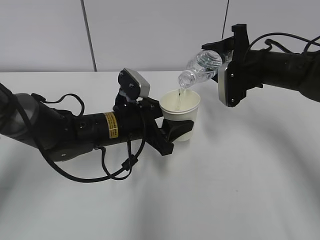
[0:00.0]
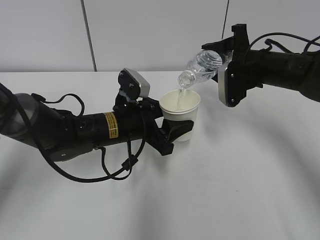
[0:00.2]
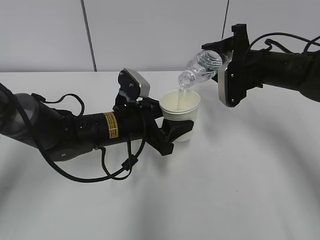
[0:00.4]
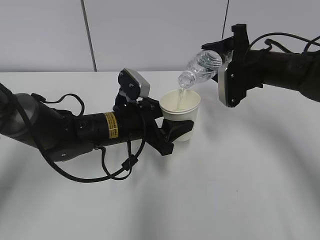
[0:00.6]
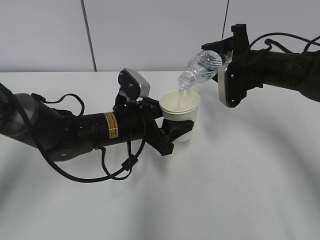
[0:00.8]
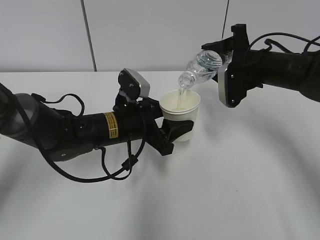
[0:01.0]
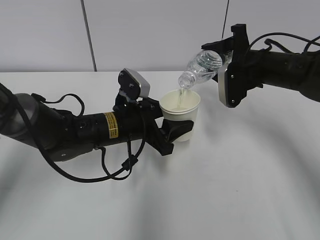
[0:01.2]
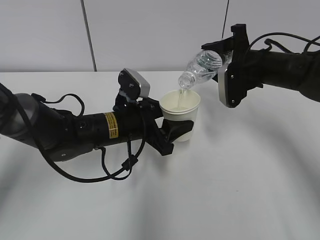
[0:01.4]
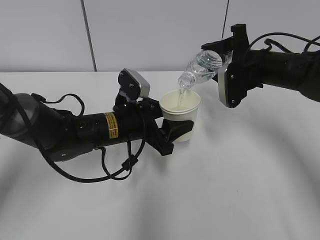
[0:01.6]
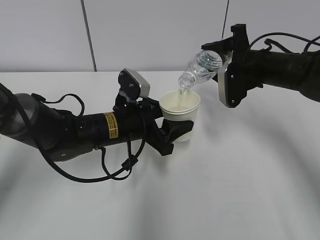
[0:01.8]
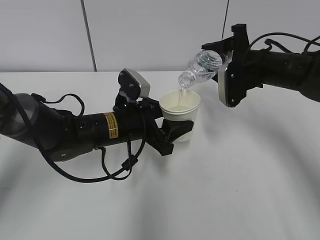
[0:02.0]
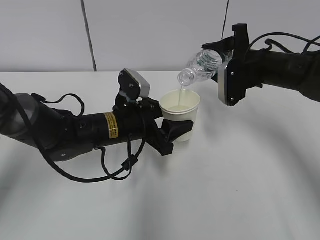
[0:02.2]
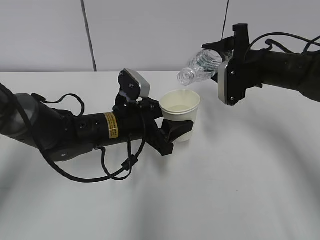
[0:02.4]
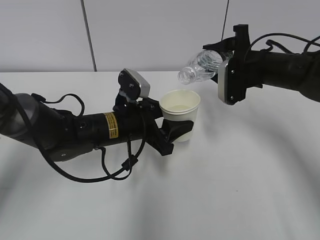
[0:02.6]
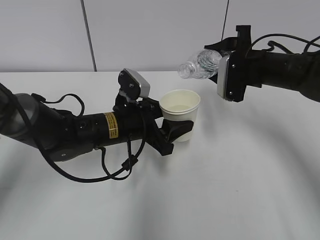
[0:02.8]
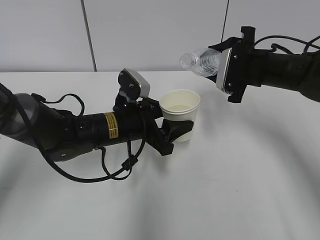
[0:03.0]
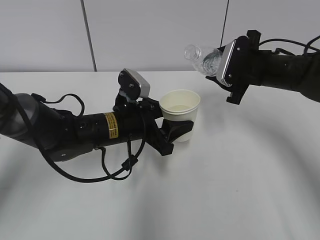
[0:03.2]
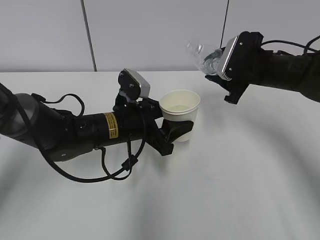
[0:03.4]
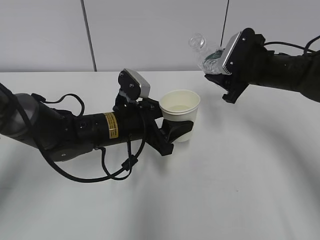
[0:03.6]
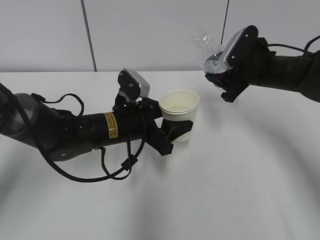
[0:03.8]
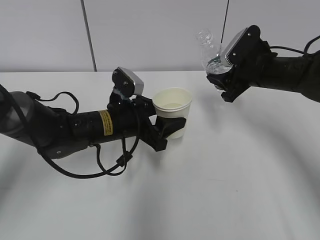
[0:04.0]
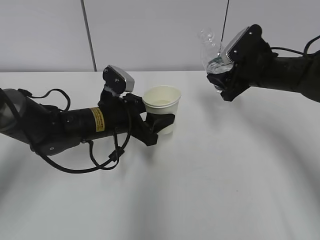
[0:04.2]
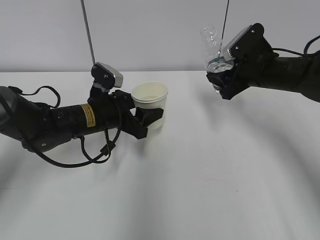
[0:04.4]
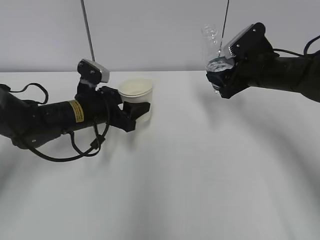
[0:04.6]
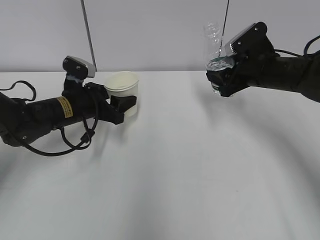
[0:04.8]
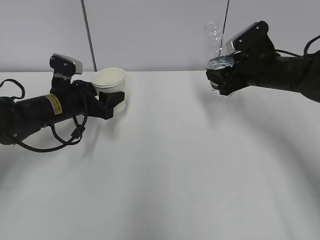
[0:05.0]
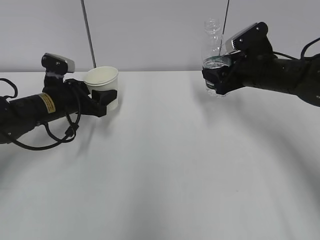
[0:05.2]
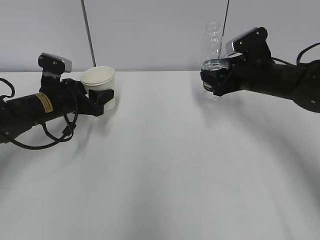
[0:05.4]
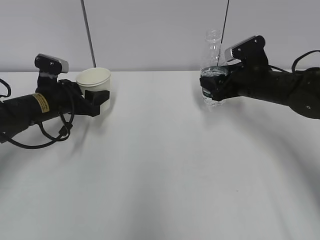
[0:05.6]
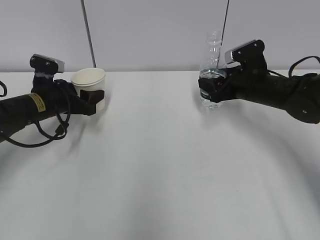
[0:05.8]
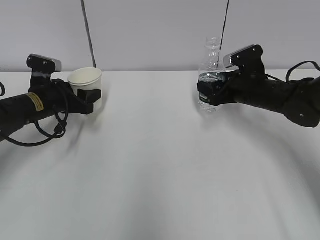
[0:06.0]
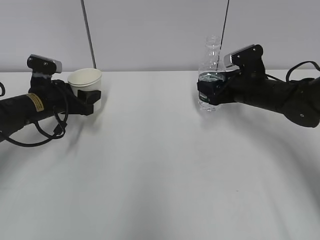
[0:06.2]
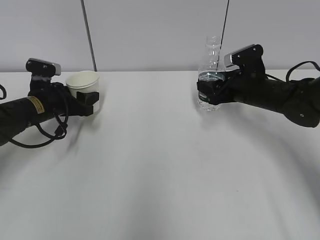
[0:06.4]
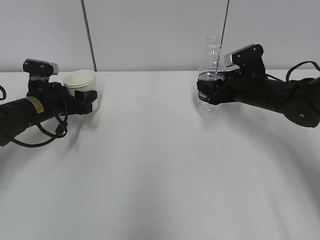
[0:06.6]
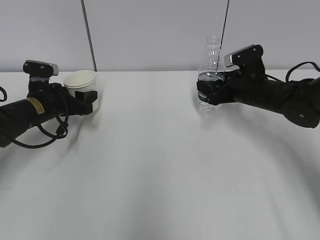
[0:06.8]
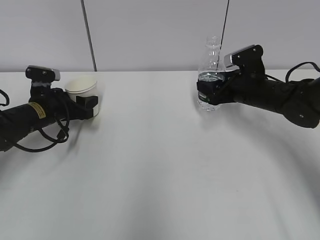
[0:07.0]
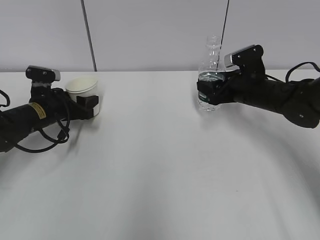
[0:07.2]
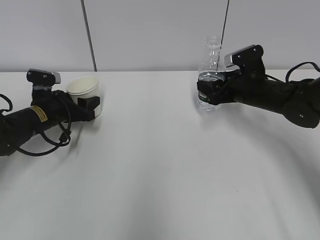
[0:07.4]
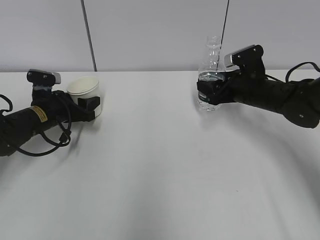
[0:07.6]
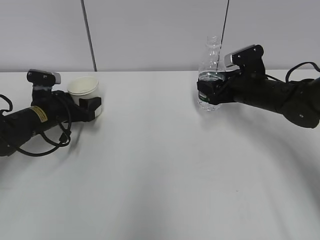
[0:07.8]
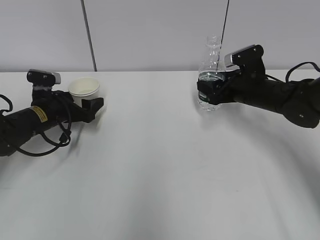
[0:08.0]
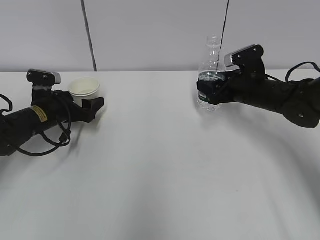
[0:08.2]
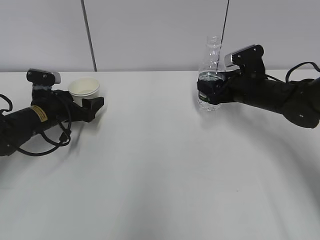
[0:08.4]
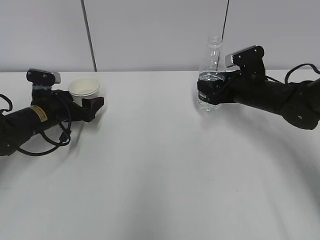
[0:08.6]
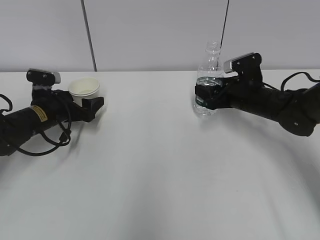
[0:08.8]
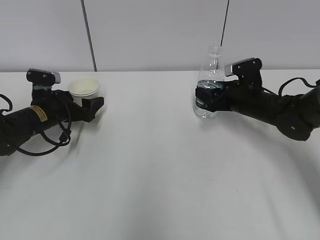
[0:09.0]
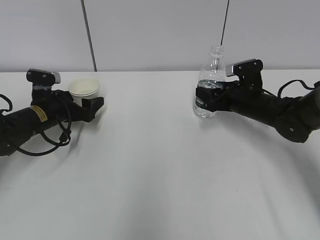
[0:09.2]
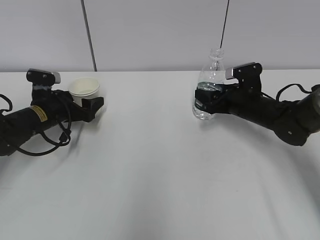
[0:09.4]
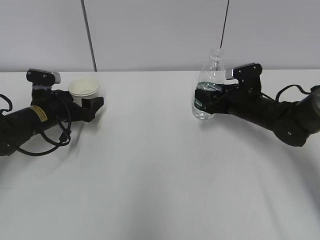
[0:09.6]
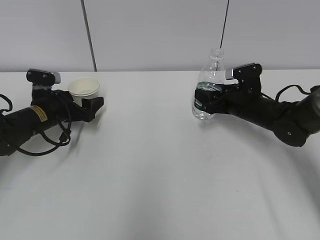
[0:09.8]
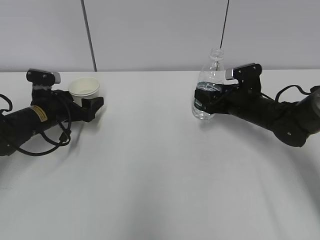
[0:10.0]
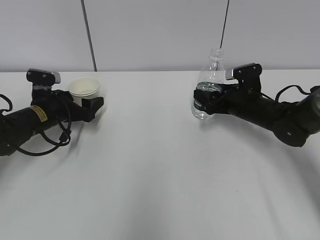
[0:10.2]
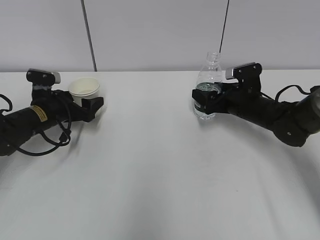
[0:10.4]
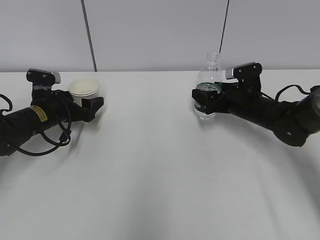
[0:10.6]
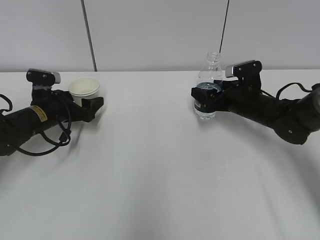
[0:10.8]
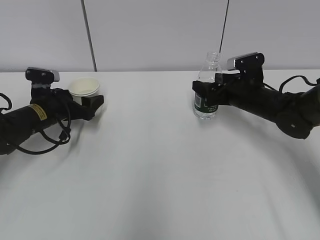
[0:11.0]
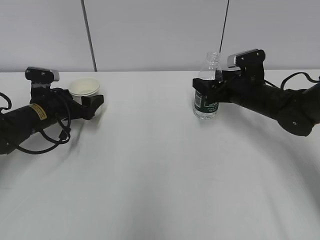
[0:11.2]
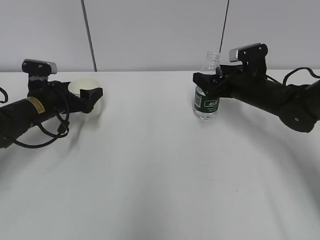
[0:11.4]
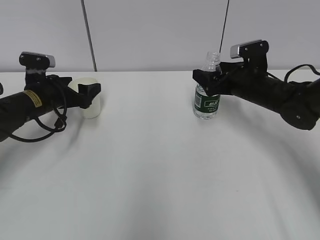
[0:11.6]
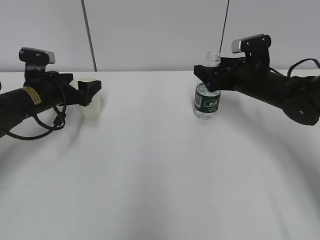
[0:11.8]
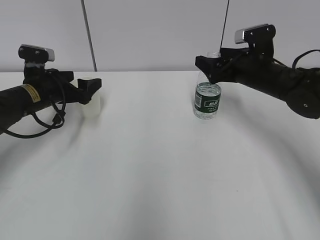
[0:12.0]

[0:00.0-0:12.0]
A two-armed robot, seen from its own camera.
Step, 0:02.6 to 0:04.6: Place the water bottle with the right hand.
0:00.0 to 0:01.6: Both grippers stay put.
0:03.0 to 0:04.4: The left gripper shifts by some 5 cm.
0:04.4 to 0:06.0: The right gripper travels downward by some 5 cm. The left gripper goes some 10 cm to the left.
0:06.0 to 0:07.6: There are only small adjustments of the grippers.
0:07.6 to 0:09.0: The left gripper opens up.
0:09.0 to 0:10.4: The right gripper opens.
0:10.4 to 0:12.0: The right gripper heads upward, covering roughly 10 cm, while the left gripper travels upward by approximately 5 cm.

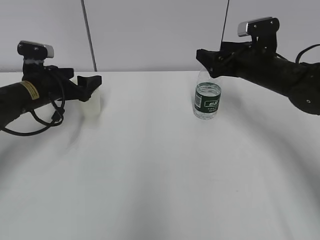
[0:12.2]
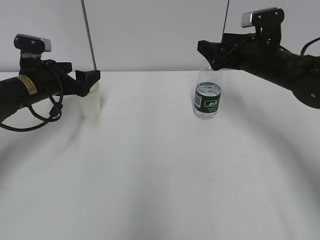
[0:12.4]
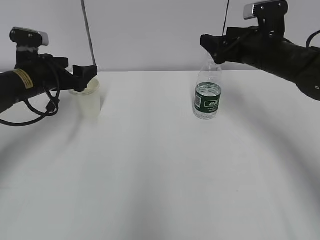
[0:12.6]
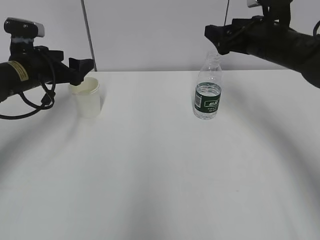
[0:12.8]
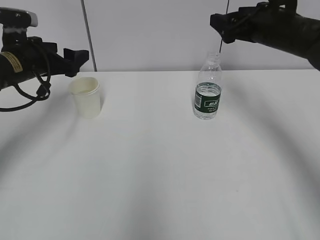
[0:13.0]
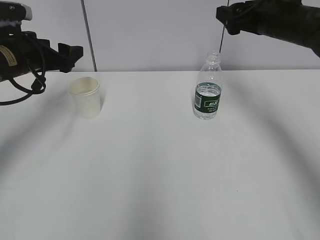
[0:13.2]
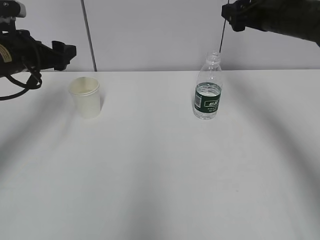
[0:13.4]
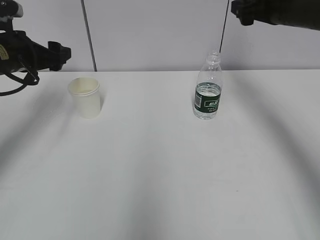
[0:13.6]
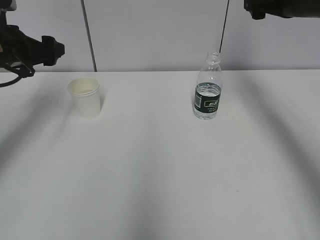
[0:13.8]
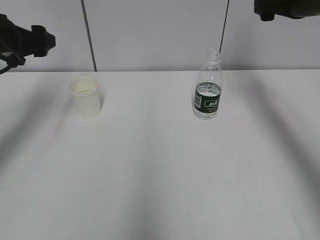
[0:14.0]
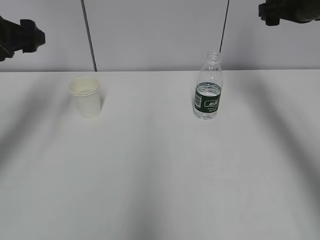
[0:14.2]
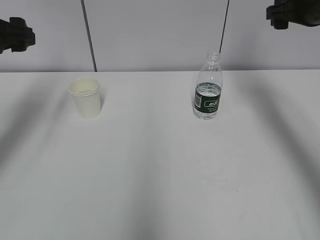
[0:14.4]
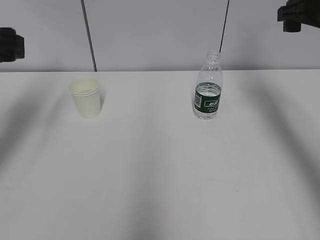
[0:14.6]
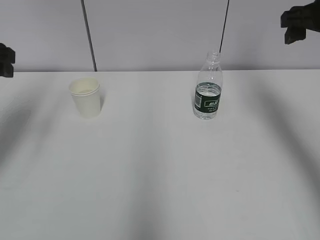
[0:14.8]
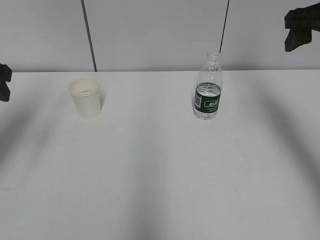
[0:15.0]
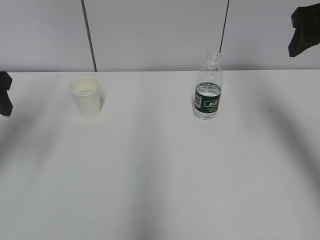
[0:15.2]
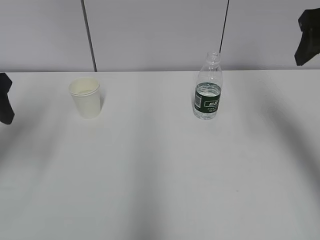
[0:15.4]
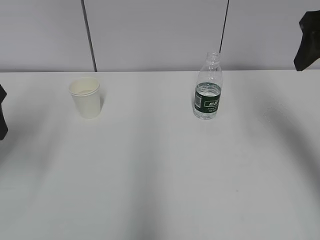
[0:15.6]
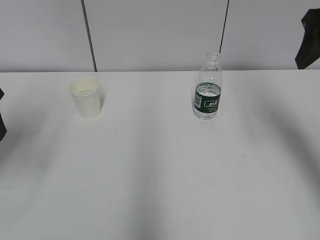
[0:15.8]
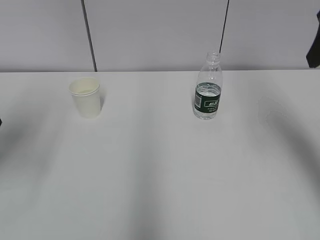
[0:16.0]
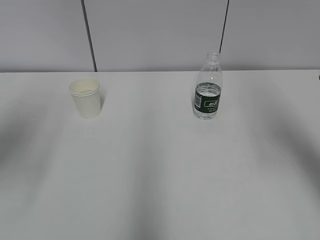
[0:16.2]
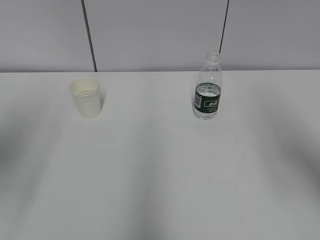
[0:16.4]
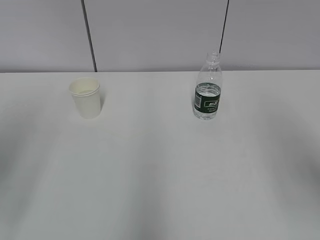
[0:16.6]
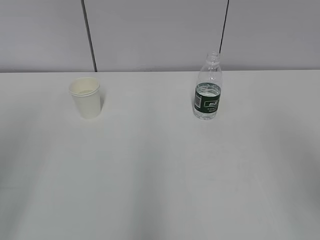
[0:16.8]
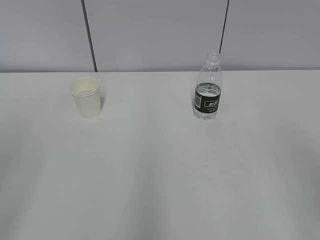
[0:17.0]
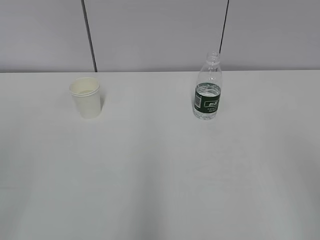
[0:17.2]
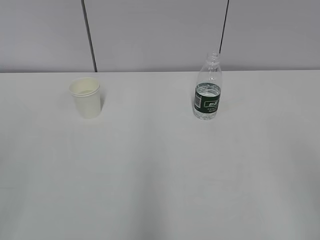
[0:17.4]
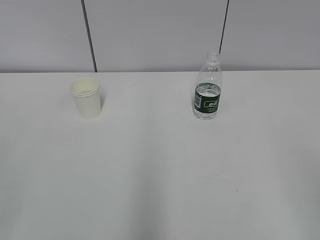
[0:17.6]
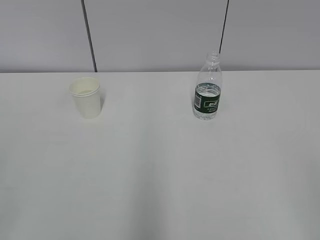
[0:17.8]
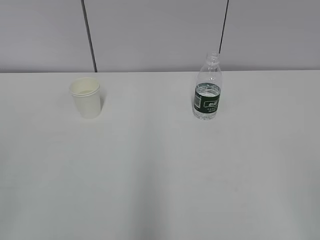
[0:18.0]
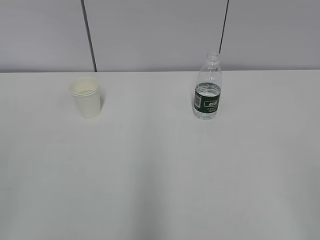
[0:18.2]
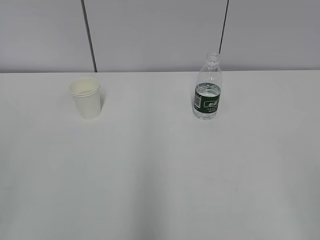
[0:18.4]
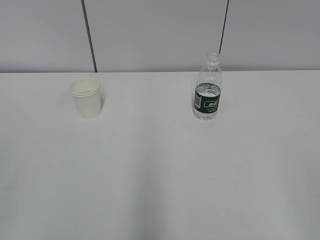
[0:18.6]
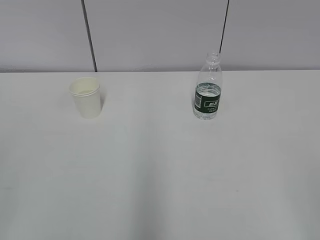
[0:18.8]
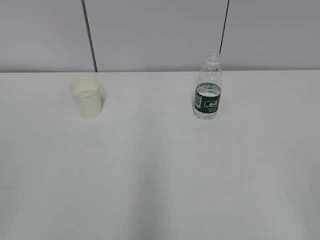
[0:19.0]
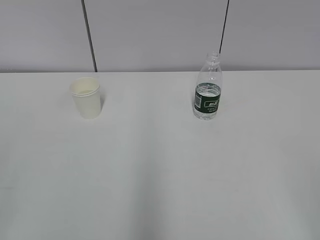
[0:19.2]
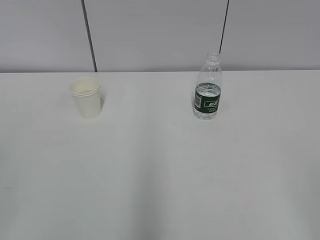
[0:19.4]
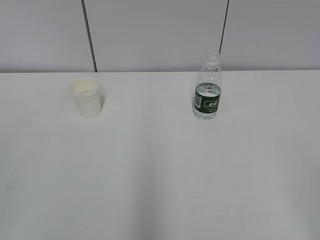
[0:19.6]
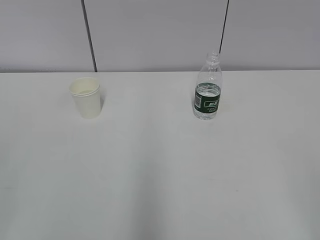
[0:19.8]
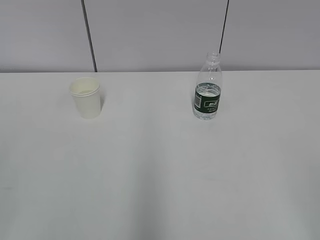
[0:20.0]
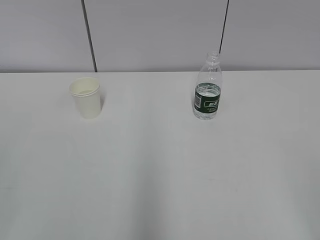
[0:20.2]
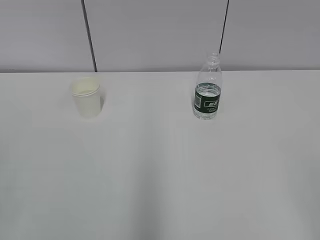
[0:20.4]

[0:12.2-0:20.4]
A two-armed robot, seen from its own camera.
0:12.2 to 0:13.8: Both grippers travel together upward, about 10 cm. The right gripper closes its fingers.
0:13.8 to 0:15.4: The left gripper goes some 10 cm backward and upward; the right gripper travels backward by approximately 10 cm.
0:15.4 to 0:17.2: The grippers both shift backward by roughly 25 cm. The left gripper closes its fingers.
0:18.8 to 0:20.4: Both grippers stay about where they are.

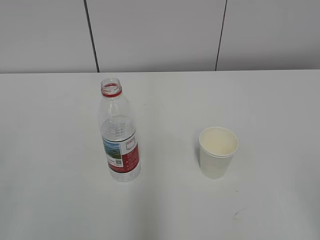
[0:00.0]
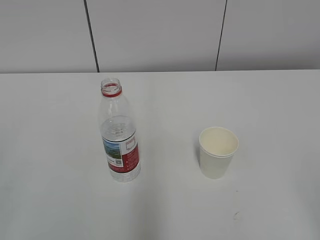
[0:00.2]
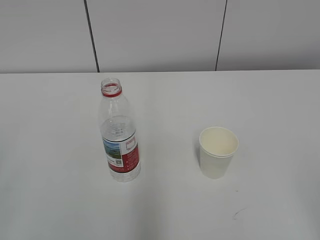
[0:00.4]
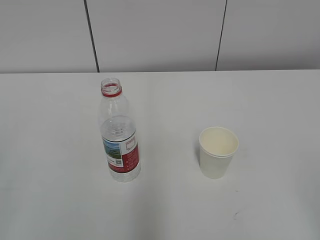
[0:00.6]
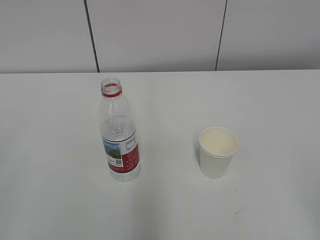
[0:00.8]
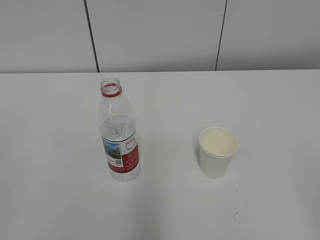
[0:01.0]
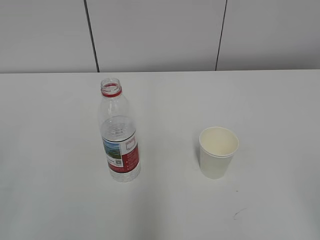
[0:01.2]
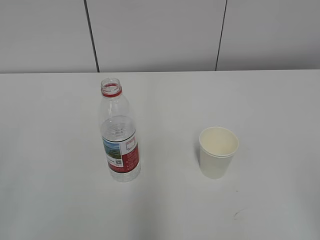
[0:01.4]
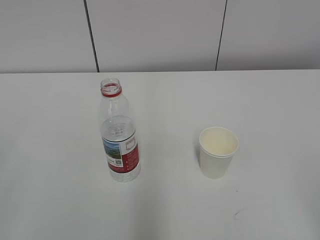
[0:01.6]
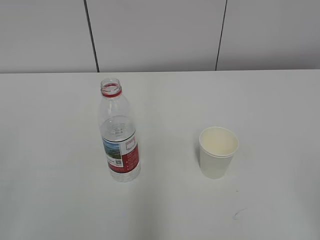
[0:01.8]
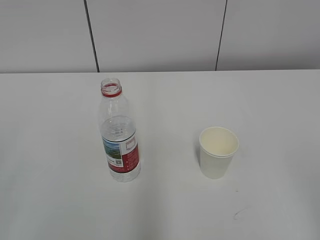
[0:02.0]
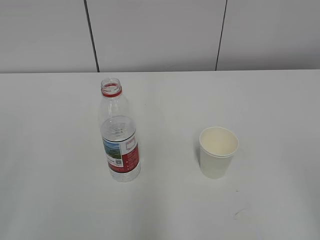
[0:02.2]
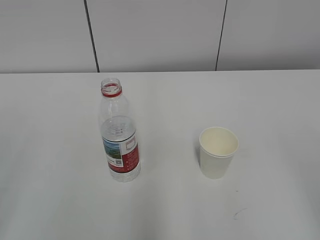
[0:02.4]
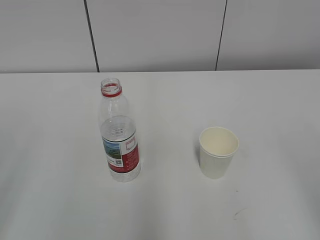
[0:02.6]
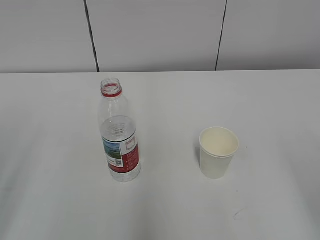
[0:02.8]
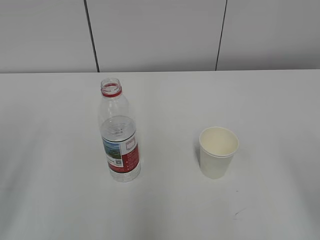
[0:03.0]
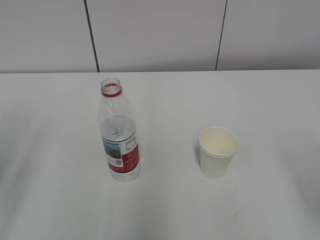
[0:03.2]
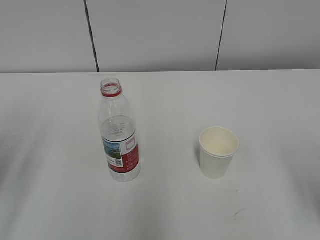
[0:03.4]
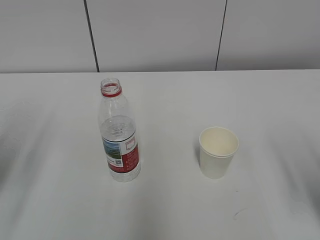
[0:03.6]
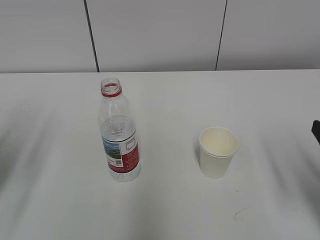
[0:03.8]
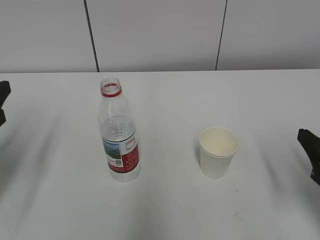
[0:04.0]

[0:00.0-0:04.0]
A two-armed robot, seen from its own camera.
0:02.6 to 0:04.0: The two grippers go roughly 20 cm forward and downward.
